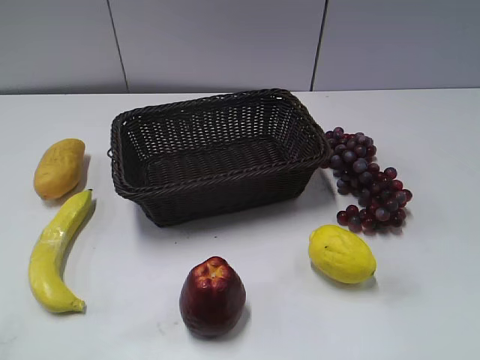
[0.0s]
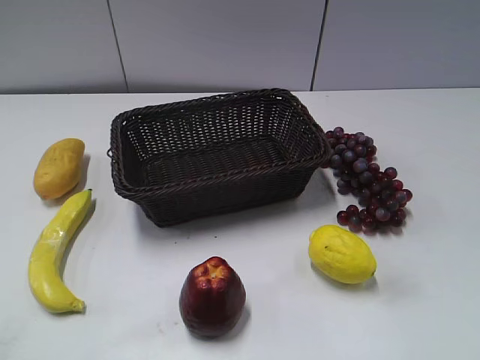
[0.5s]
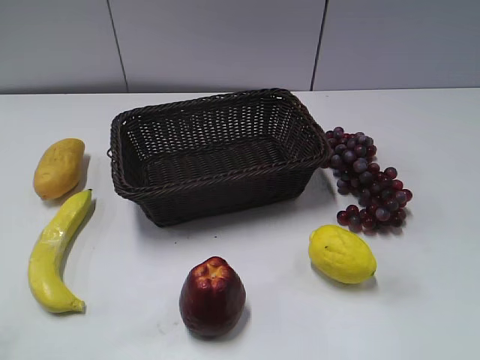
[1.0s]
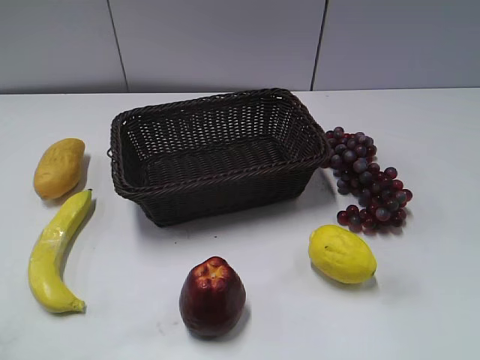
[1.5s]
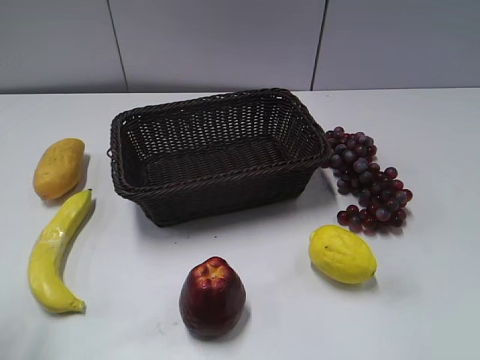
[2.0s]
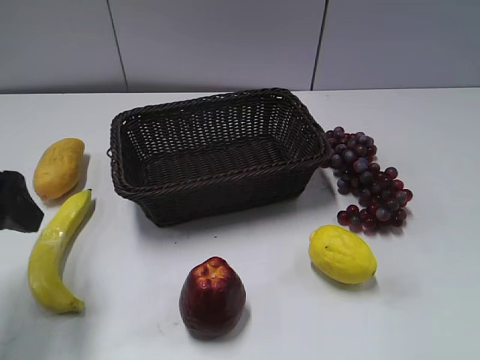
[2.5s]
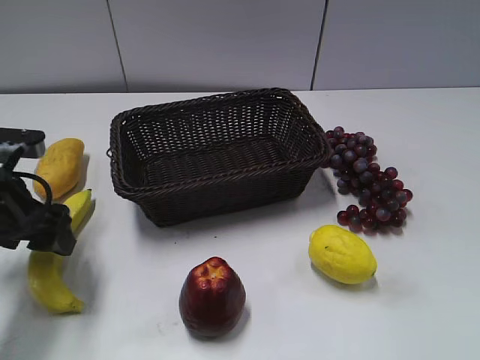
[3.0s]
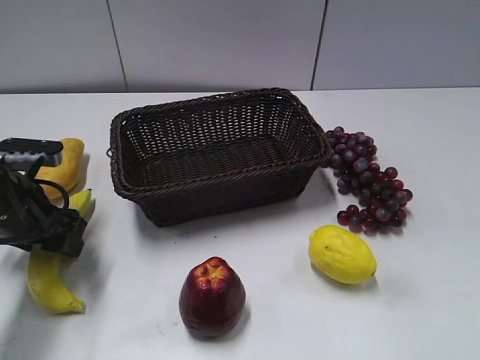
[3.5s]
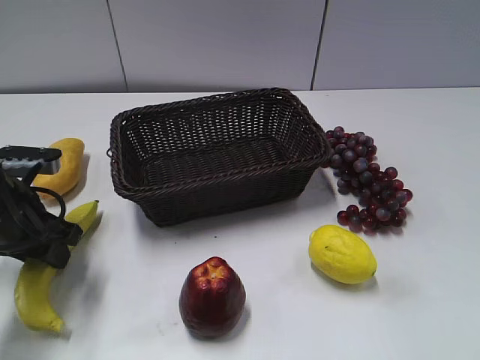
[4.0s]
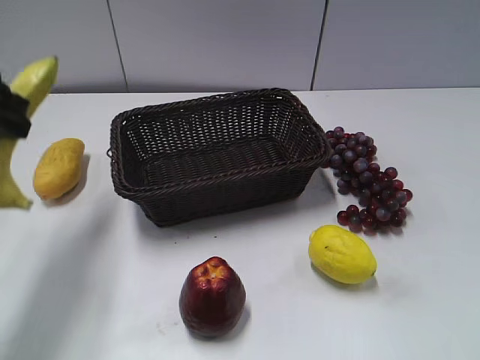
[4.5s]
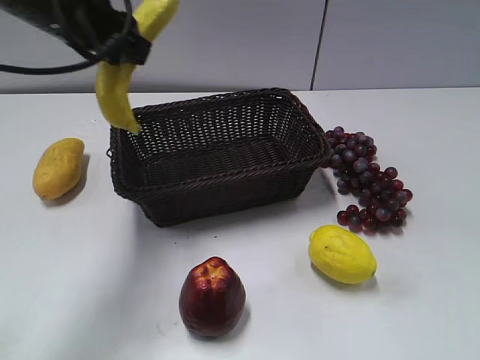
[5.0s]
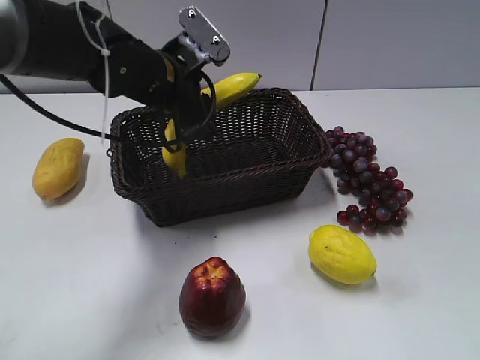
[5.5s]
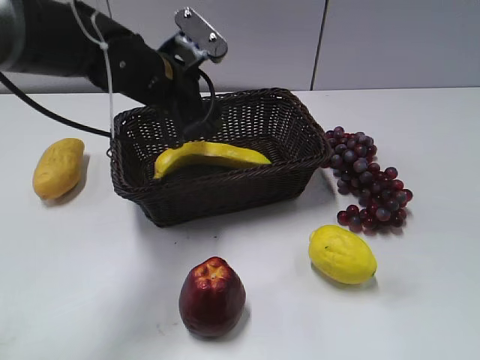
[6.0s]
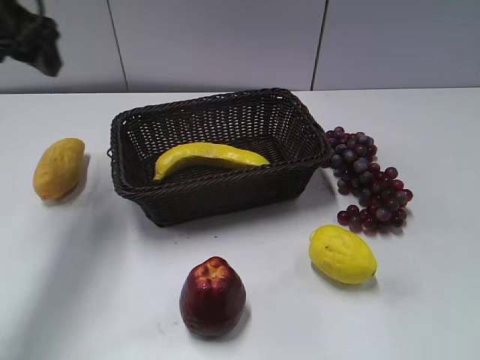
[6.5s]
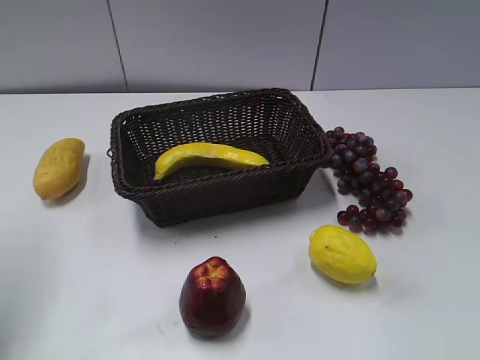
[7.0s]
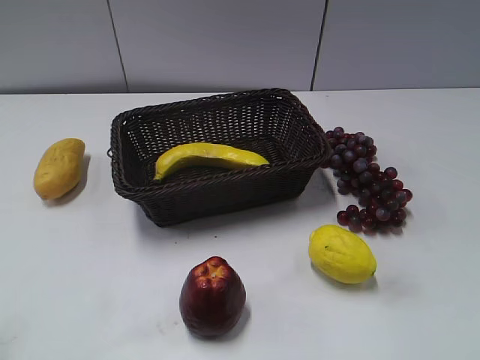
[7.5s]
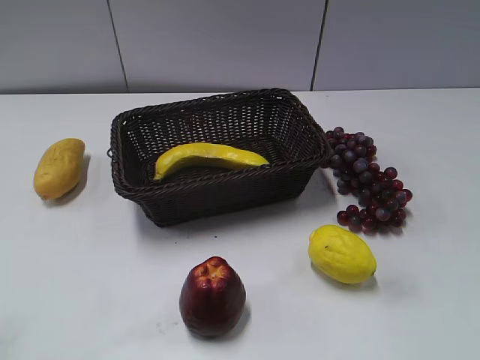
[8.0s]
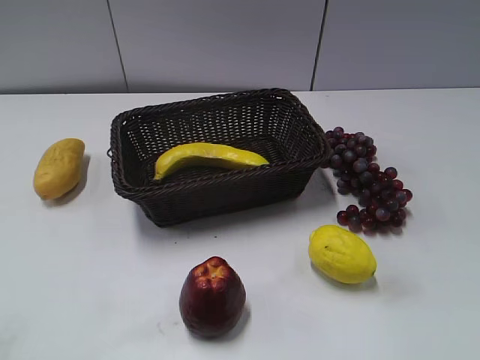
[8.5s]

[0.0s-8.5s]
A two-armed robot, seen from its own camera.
Step, 2.5s to 3.5s: Grasp the banana with left gripper.
Step, 4.5s to 6.0s: Place the banana in the basket with left gripper.
0.0s to 2.0s: The left gripper travels forward by approximately 20 cm, and opens up.
2.0s to 4.0s: The left gripper heads forward and downward, covering some 10 cm, and closes its fingers.
4.0s to 6.5s: The left gripper goes some 15 cm upward, goes to the right and returns, some 15 cm each way, and opens.
6.5s to 8.5s: The left gripper moves backward, about 30 cm.

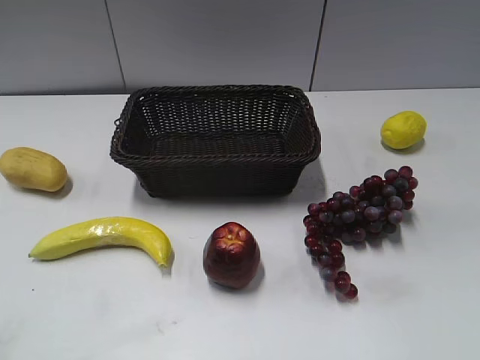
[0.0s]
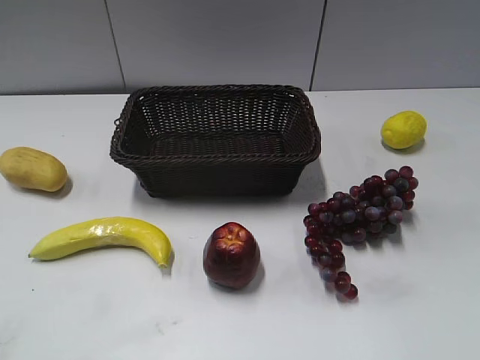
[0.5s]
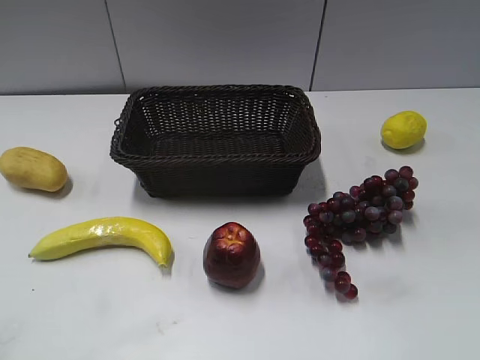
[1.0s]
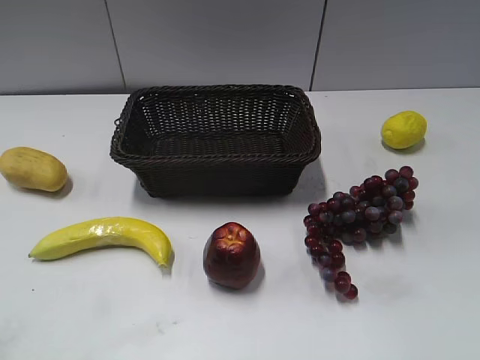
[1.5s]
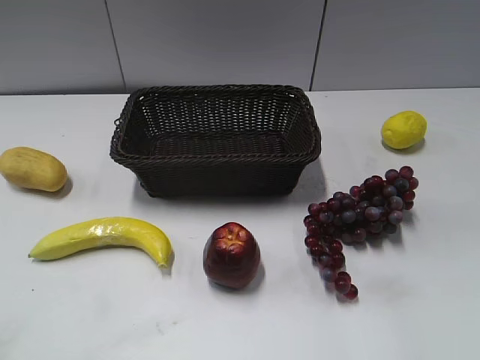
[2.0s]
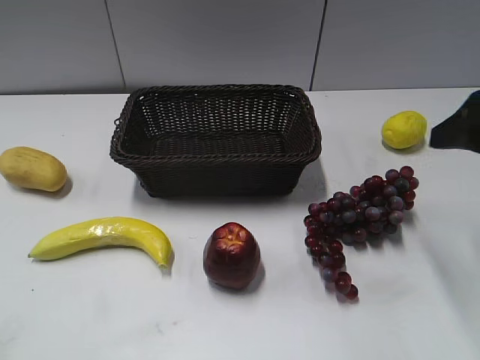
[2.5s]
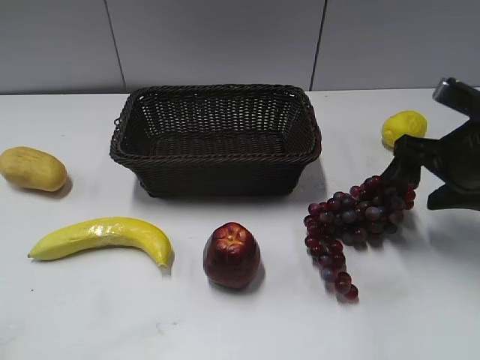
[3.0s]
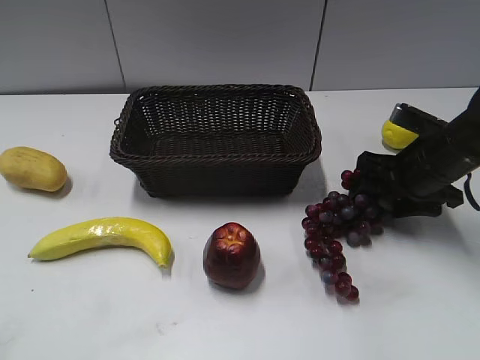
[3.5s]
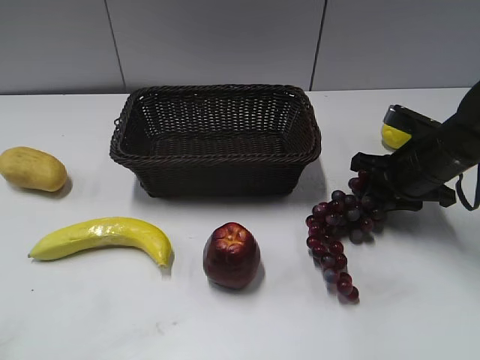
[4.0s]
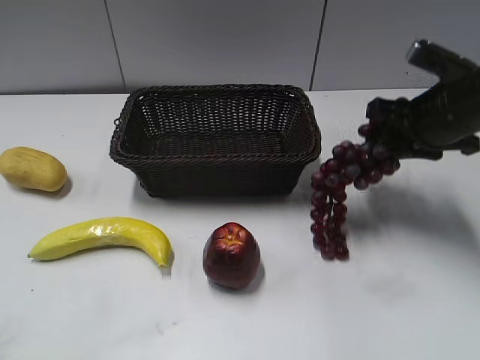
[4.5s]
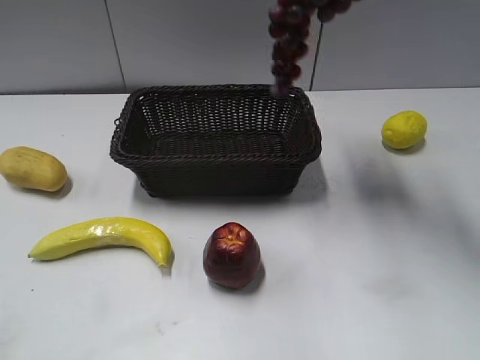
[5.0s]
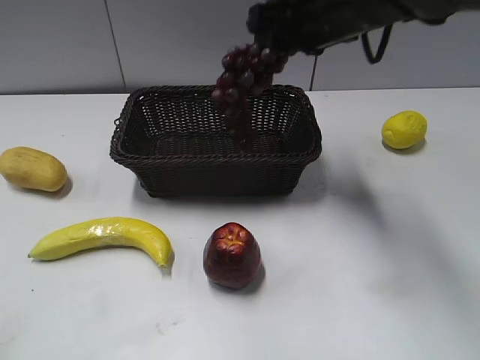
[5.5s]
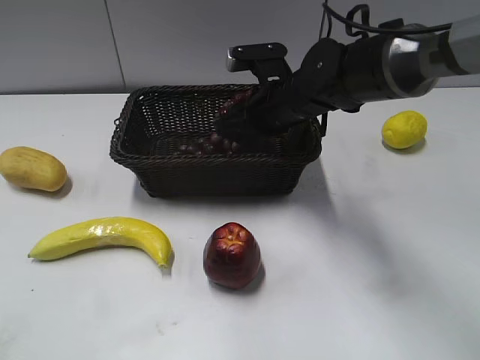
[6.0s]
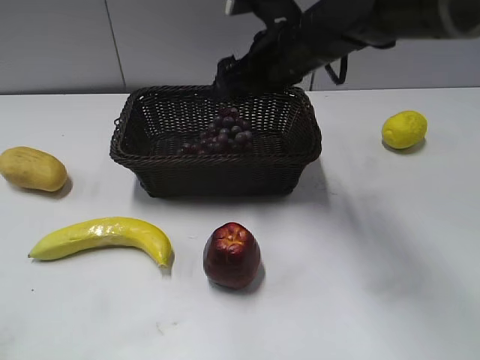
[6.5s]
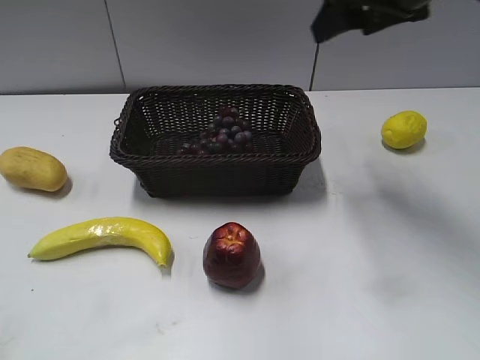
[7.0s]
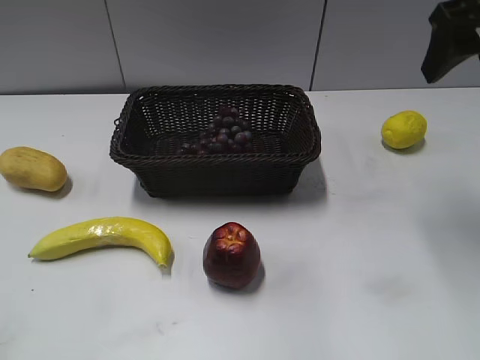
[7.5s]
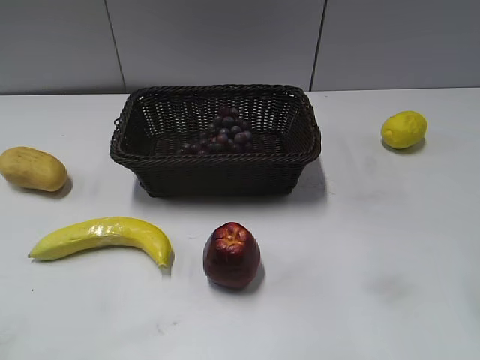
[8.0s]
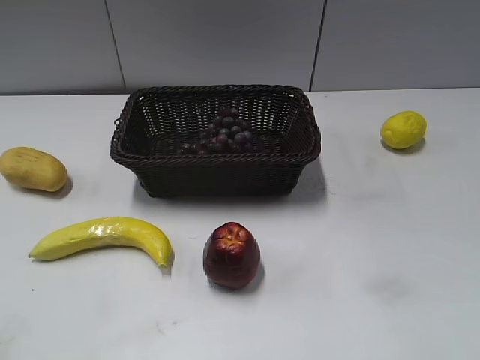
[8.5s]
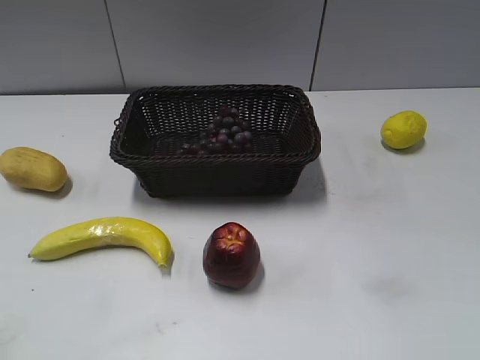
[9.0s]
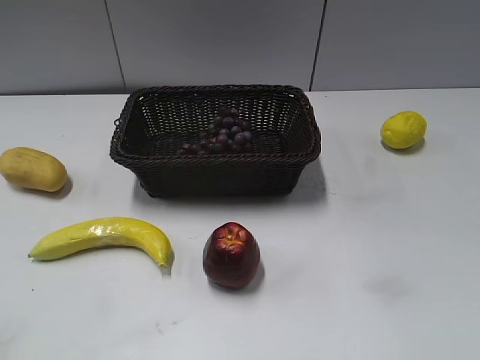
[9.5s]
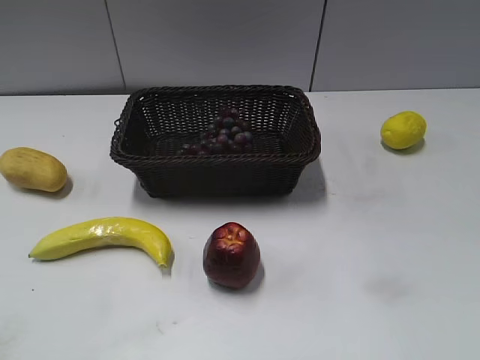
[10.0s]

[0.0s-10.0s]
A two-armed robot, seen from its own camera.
Step, 2.5s to 4.0s: Grasp the grape with right gripper.
Step, 4.5s to 6.0s: Place the grape in the basket with right gripper.
2.0s to 4.0s: The right gripper heads forward and downward, covering some 35 cm, and closes its fingers.
4.0s to 6.0s: The right gripper travels to the left by some 20 cm, and travels upward and back again, roughly 25 cm each way.
6.0s to 8.0s: The right gripper is displaced to the right, backward and upward by some 35 cm, and opens.
